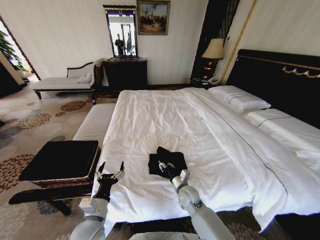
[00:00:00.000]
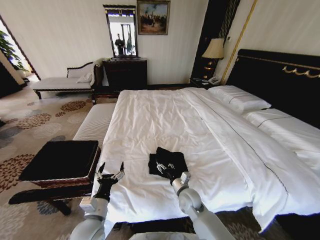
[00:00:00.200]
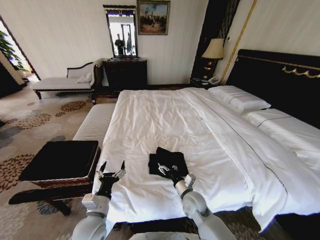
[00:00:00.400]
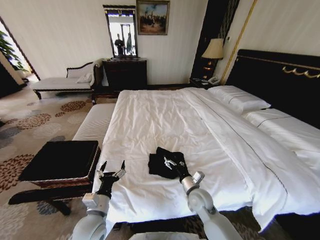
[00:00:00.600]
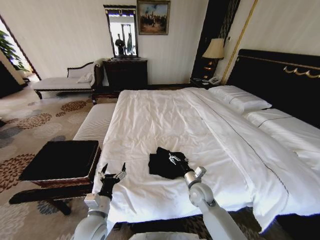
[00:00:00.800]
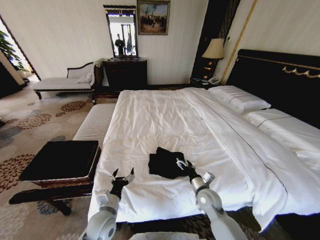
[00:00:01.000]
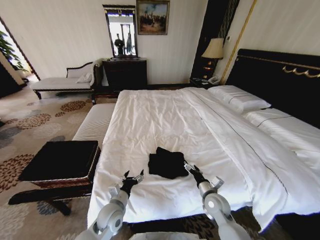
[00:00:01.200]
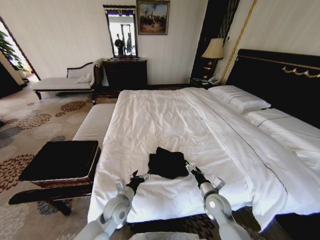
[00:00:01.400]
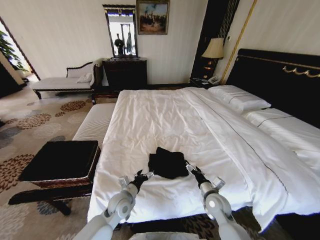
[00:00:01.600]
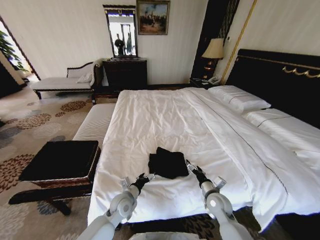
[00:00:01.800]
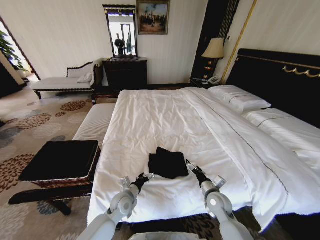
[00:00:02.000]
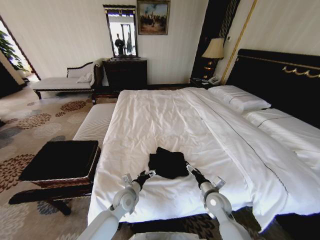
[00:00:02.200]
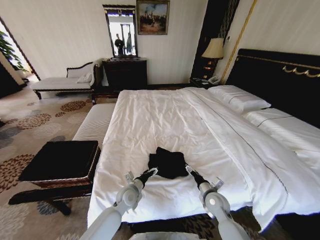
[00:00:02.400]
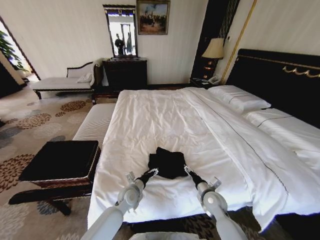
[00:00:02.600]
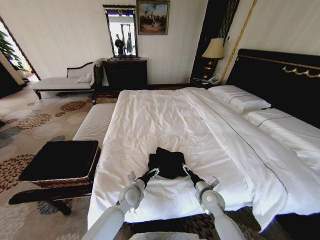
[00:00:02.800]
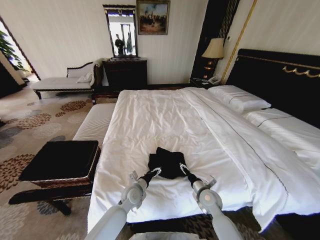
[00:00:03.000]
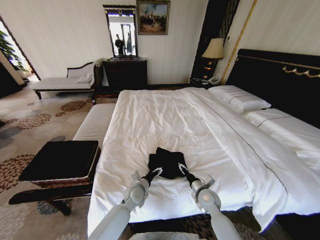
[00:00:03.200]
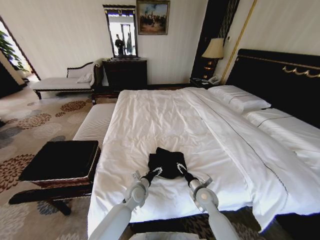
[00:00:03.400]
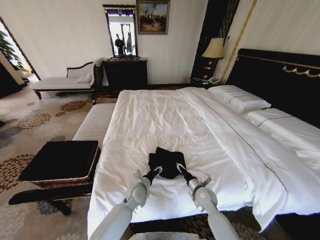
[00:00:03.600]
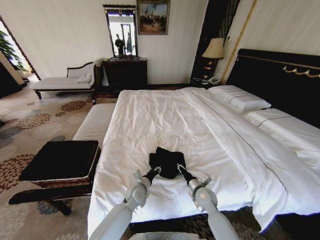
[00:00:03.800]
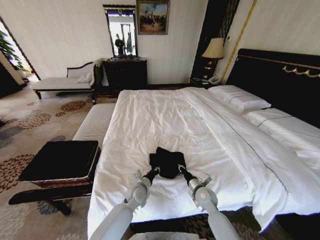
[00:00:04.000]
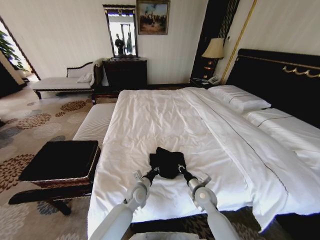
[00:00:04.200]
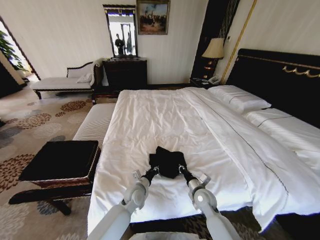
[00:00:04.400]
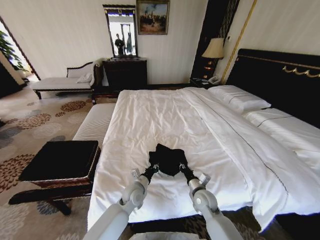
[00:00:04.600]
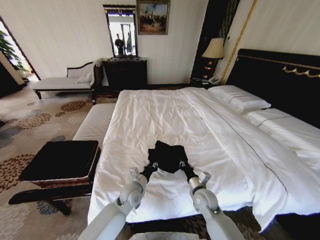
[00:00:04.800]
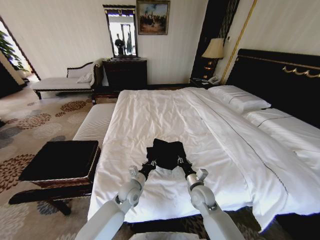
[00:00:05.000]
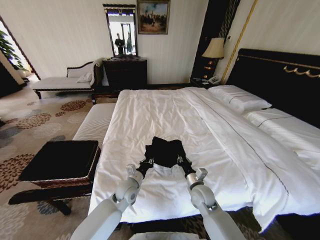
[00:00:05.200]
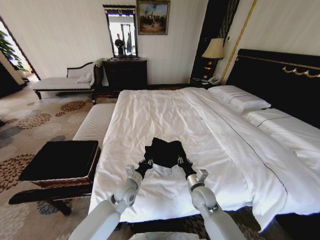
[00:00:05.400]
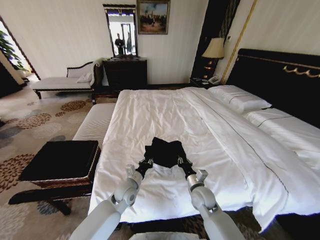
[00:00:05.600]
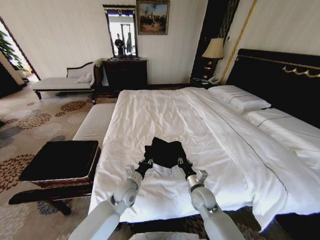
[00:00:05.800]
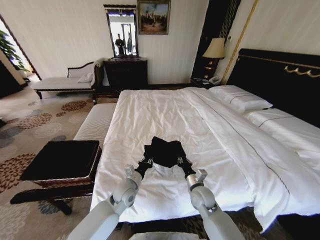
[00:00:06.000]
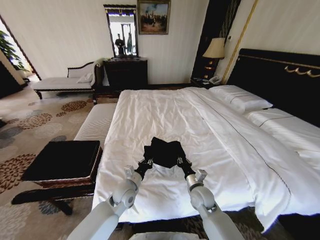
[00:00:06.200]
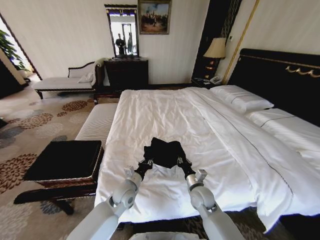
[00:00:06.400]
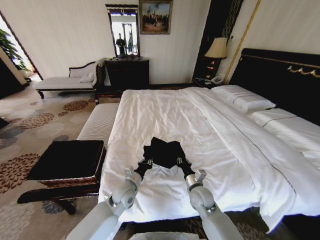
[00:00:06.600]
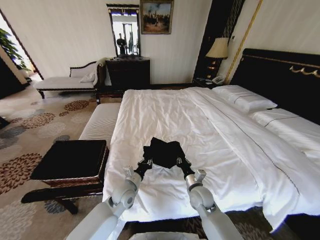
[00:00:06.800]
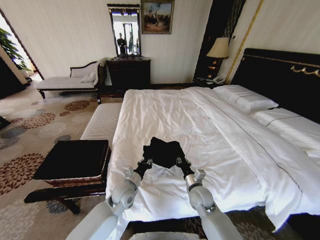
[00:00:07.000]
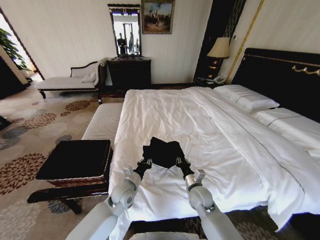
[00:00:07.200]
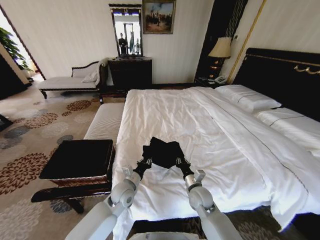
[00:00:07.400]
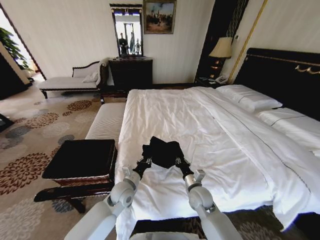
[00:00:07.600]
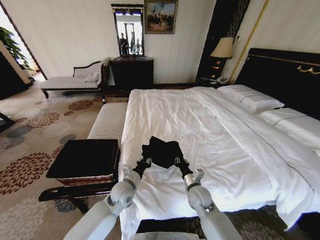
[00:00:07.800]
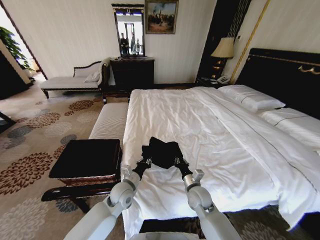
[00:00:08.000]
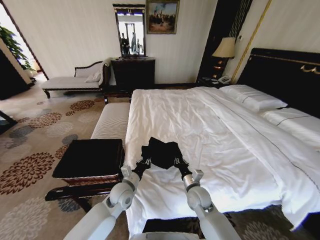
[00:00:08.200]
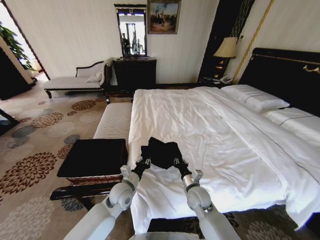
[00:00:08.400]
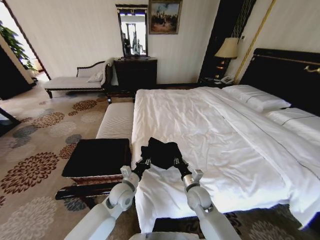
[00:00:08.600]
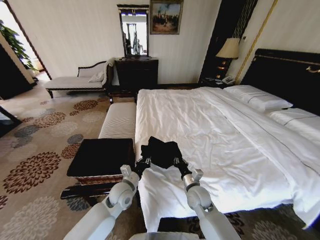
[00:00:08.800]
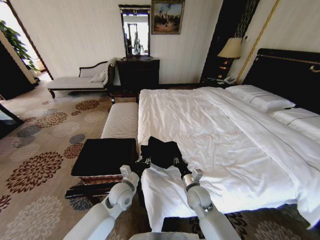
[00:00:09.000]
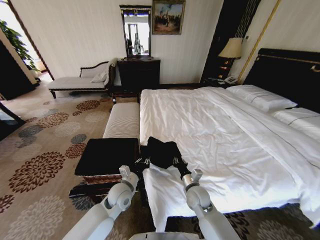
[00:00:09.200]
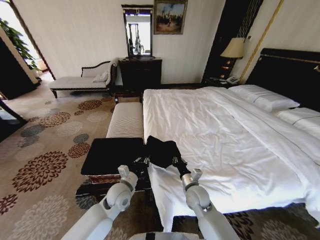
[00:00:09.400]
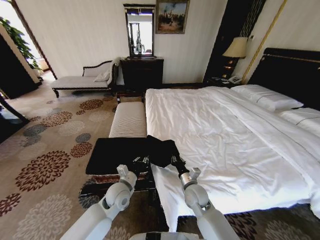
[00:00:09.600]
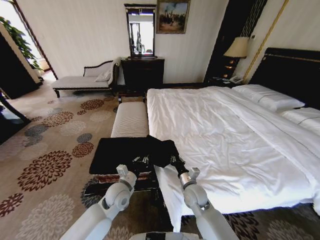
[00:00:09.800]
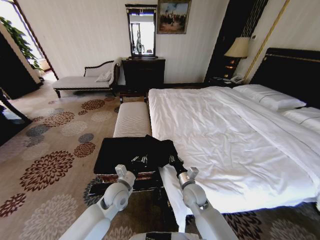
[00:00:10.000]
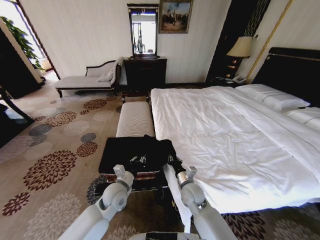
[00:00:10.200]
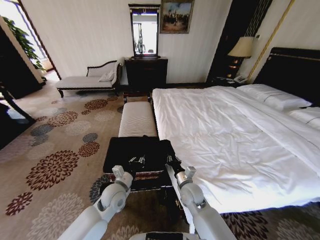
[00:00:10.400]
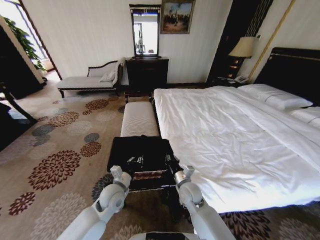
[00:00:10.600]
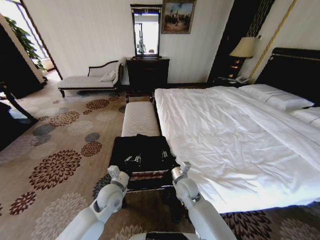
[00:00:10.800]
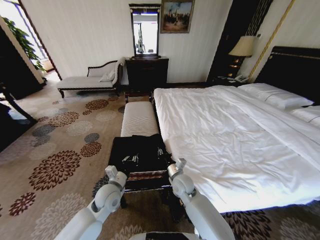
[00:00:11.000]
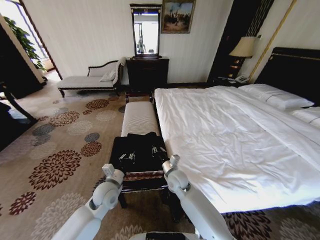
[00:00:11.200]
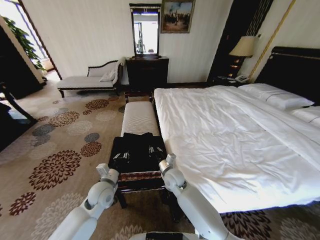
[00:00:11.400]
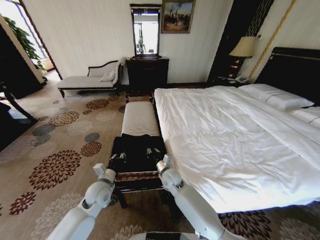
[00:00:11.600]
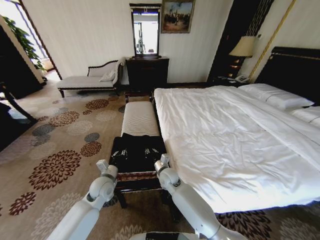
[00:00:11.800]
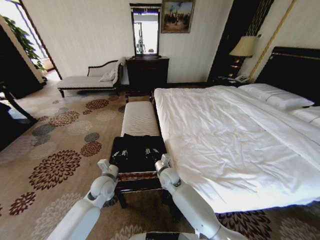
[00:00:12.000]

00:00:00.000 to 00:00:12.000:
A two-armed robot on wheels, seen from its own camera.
Task of the whole recording: Fold the clothes on the bed and place them into the basket.
00:00:00.000 to 00:00:01.600: The left gripper heads forward, downward and to the right, covering approximately 15 cm. The right gripper is displaced to the right by roughly 10 cm, and opens its fingers.
00:00:01.600 to 00:00:03.000: The left gripper shifts by roughly 5 cm.
00:00:03.000 to 00:00:04.400: The right gripper closes up. The left gripper closes up.
00:00:04.400 to 00:00:06.000: The left gripper goes approximately 5 cm upward.
00:00:10.400 to 00:00:12.000: The right gripper heads to the left and forward, covering some 10 cm. Meanwhile the left gripper shifts about 5 cm to the left.

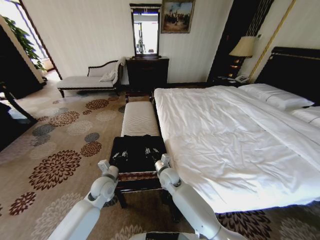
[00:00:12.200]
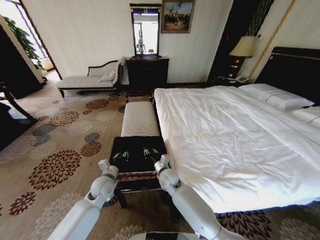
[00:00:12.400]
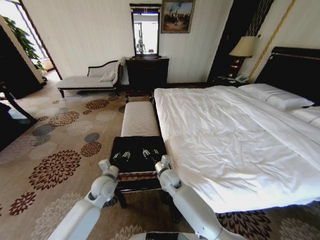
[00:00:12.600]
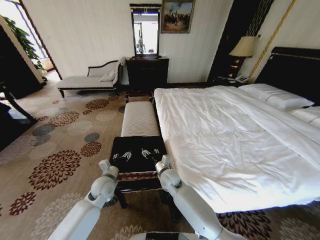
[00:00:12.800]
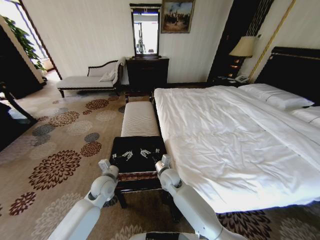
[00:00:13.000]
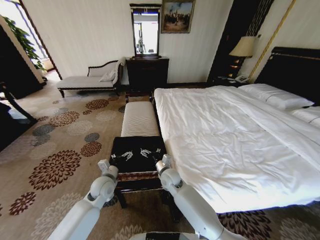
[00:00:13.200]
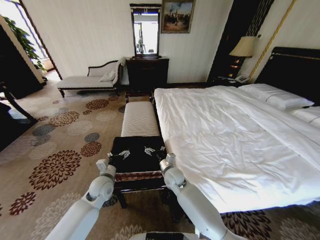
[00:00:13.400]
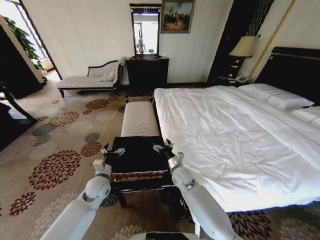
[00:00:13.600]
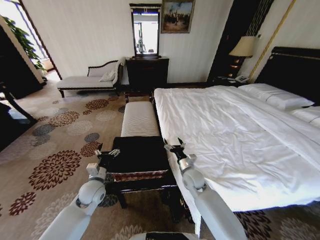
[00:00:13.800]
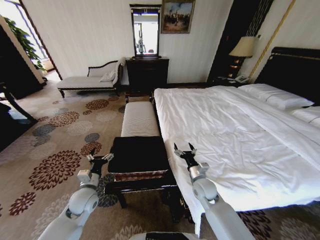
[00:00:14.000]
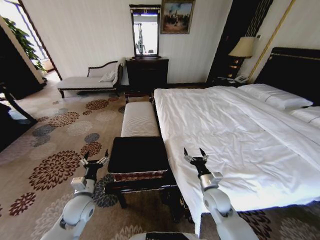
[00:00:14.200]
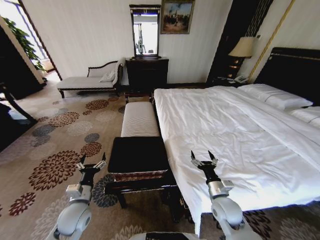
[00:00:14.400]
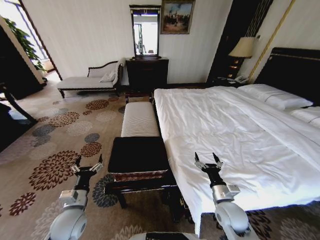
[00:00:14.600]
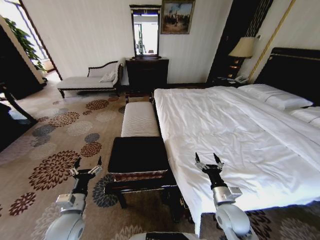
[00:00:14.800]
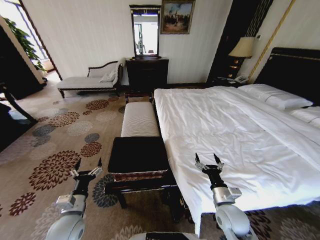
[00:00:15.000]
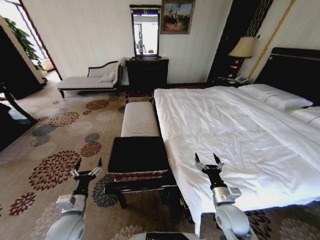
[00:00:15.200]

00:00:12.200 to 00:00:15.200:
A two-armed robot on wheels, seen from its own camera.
Task of the whole recording: Fold the clothes on the bed and place them into the basket.
00:00:12.200 to 00:00:13.800: The left gripper opens up, while the right gripper moves to the right, about 10 cm, and opens up.
00:00:13.800 to 00:00:15.200: The left gripper travels backward by about 10 cm. The right gripper is displaced backward and to the right by roughly 20 cm.
